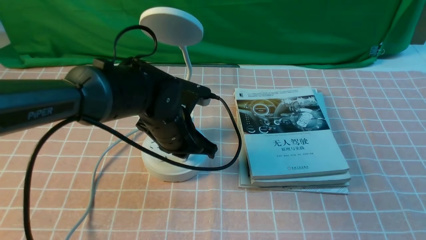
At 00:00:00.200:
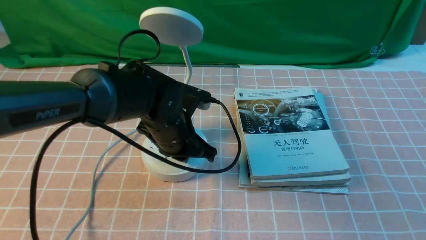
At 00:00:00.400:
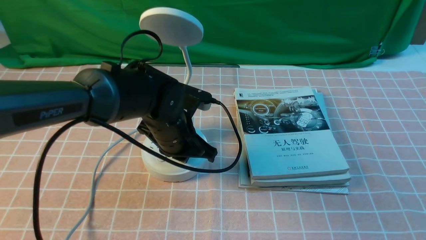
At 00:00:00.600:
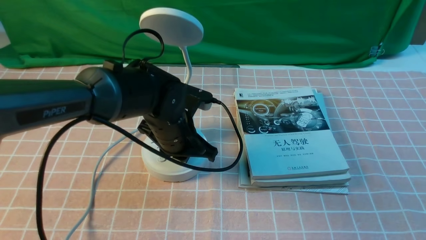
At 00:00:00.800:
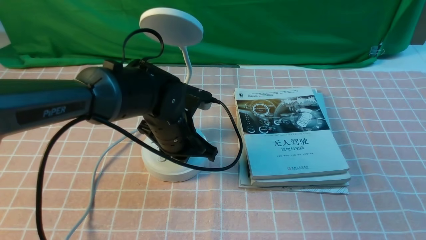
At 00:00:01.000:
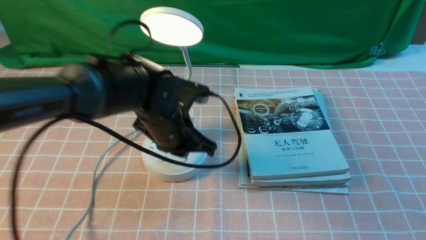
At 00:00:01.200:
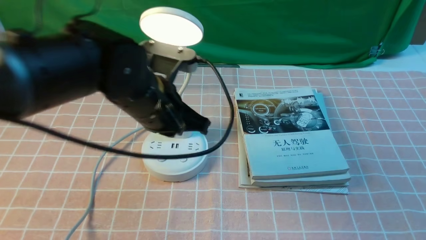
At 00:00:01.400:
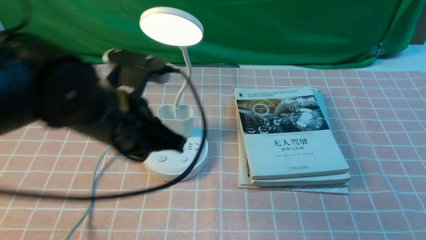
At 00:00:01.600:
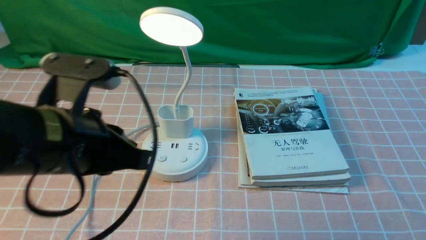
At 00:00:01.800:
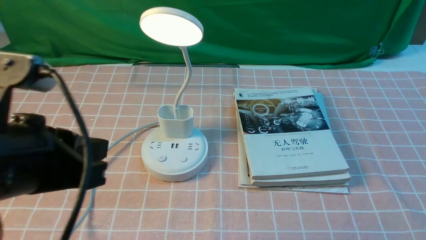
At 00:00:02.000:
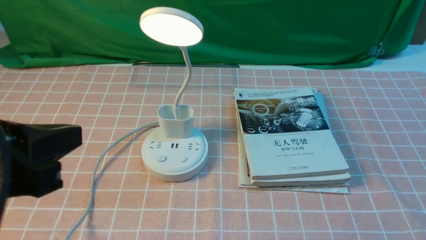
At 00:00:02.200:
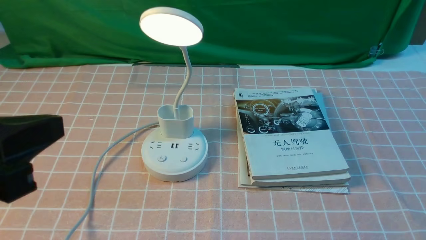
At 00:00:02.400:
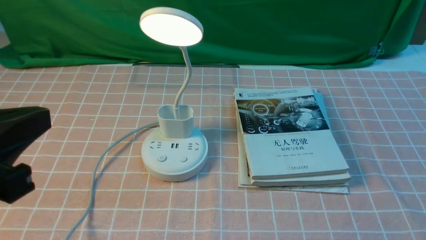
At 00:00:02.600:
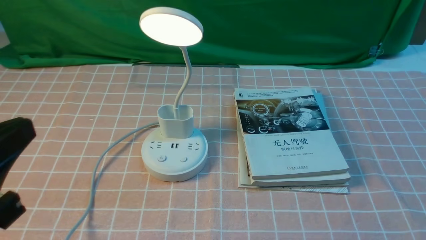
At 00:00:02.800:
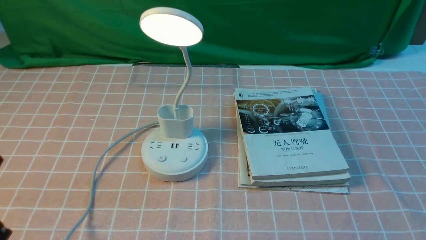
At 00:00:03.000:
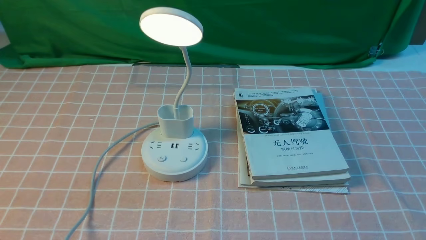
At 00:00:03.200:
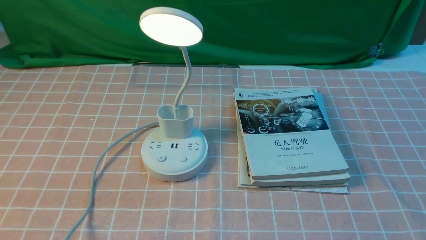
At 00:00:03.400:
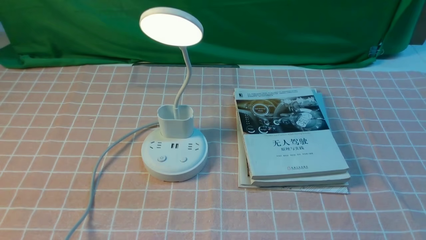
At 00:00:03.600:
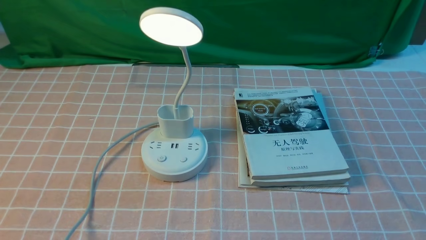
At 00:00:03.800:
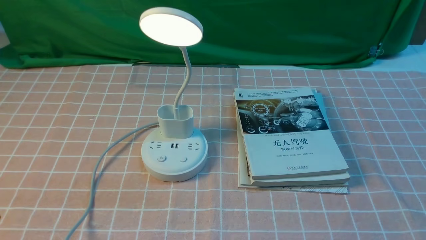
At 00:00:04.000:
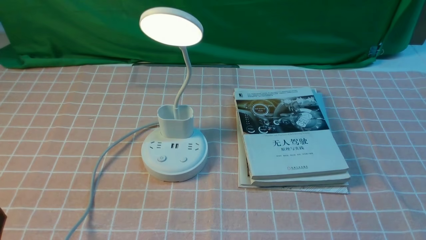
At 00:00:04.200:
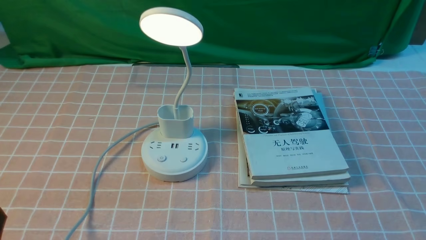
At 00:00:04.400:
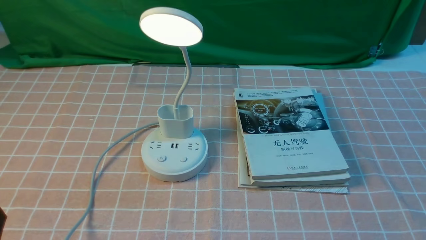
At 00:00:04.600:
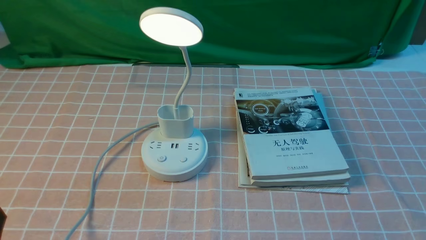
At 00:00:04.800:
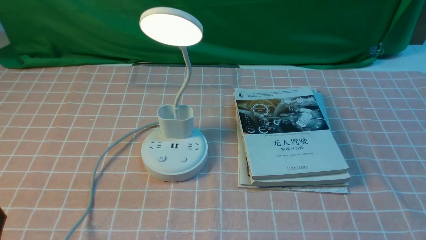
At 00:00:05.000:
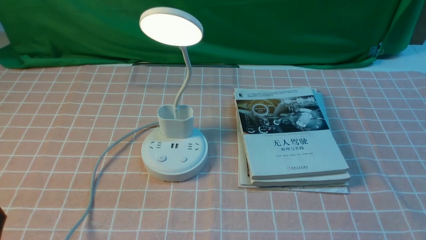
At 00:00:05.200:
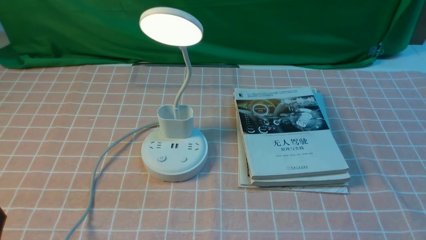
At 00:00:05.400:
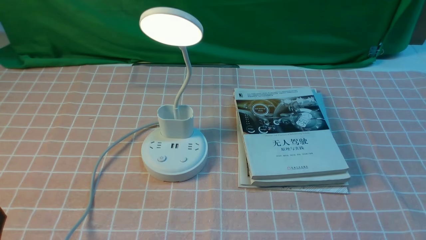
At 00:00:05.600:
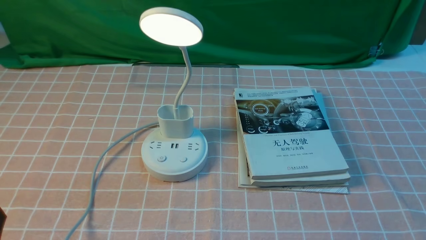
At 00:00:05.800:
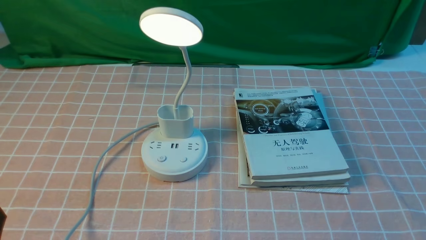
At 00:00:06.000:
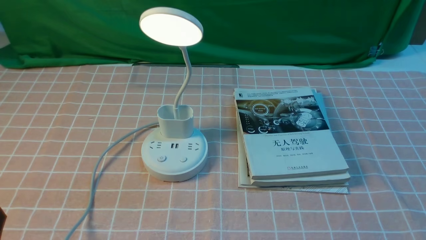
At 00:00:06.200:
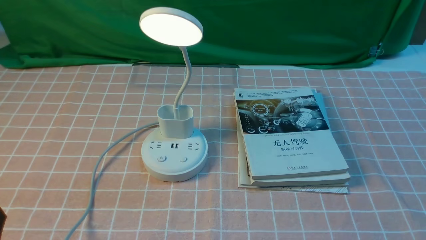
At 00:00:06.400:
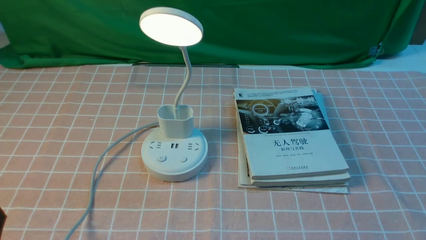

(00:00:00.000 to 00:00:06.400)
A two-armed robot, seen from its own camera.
00:00:00.000 - 00:00:01.600: The left gripper is displaced backward, upward and to the left by approximately 20 cm.
00:00:01.600 - 00:00:03.200: The left gripper heads backward, to the left and downward, covering approximately 20 cm.
00:00:04.800 - 00:00:06.400: Both grippers stay put.
